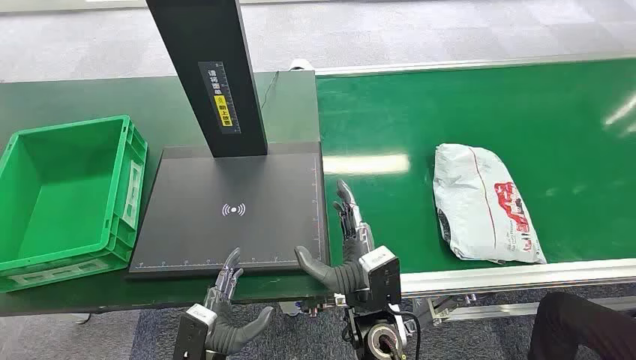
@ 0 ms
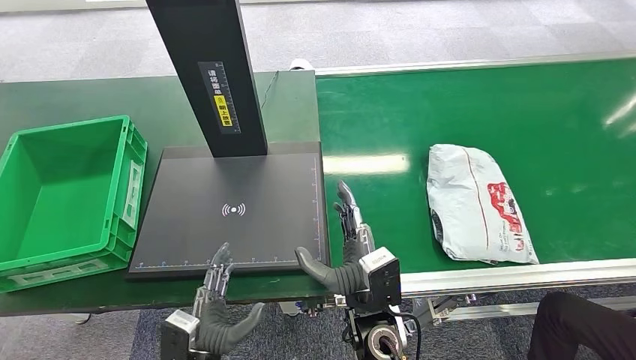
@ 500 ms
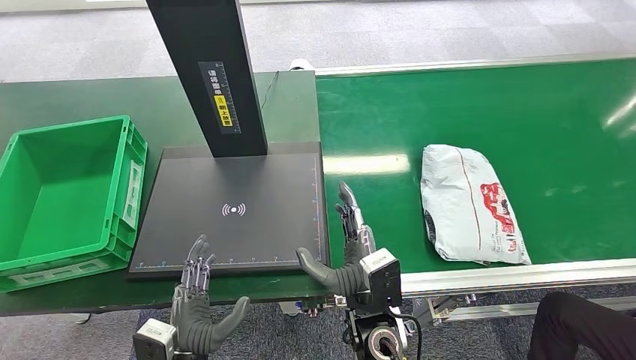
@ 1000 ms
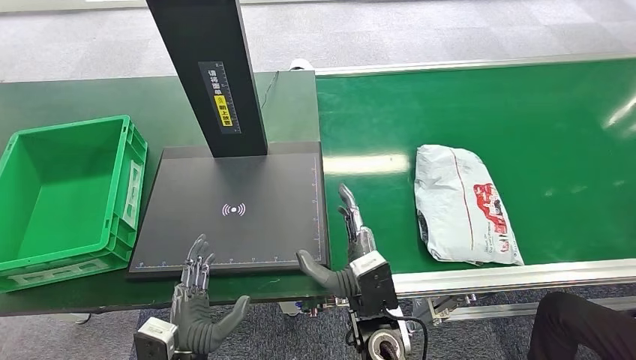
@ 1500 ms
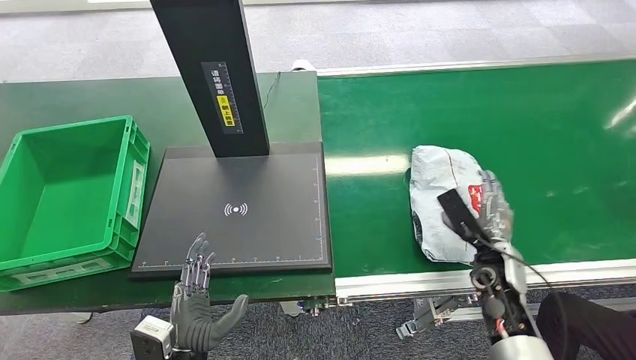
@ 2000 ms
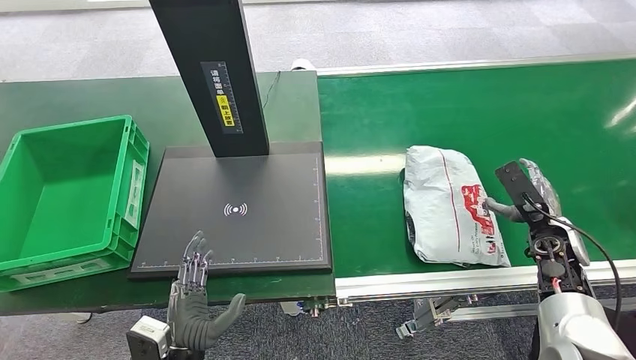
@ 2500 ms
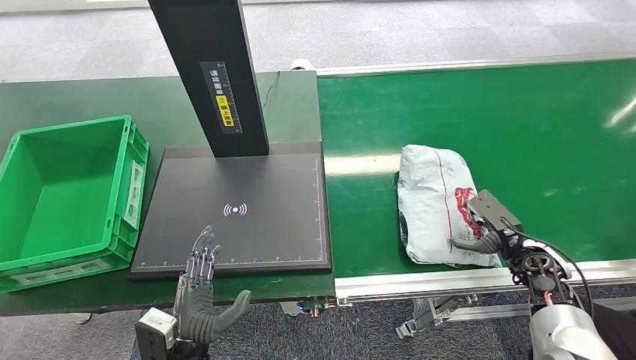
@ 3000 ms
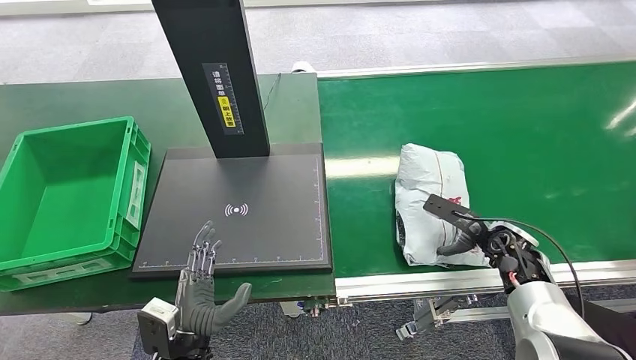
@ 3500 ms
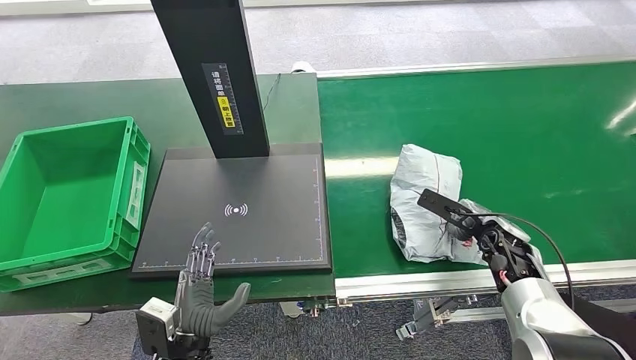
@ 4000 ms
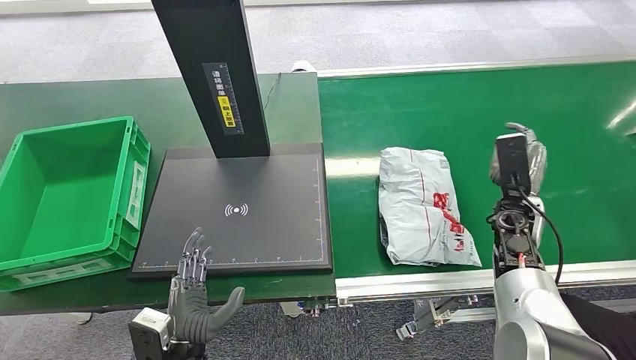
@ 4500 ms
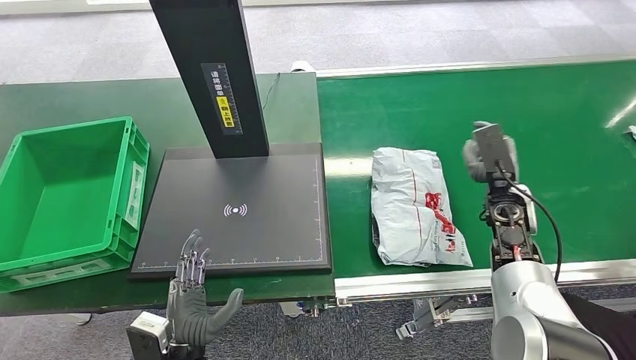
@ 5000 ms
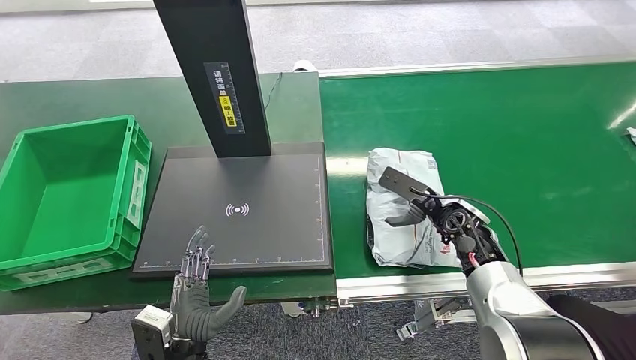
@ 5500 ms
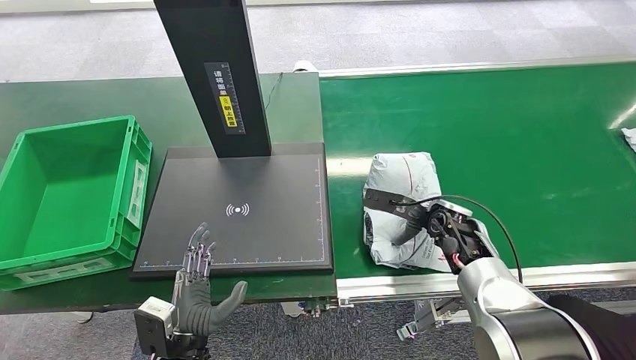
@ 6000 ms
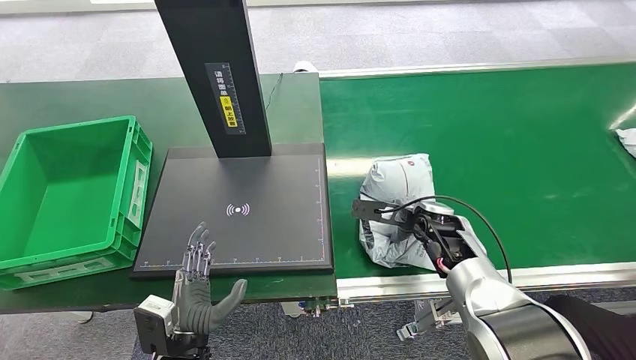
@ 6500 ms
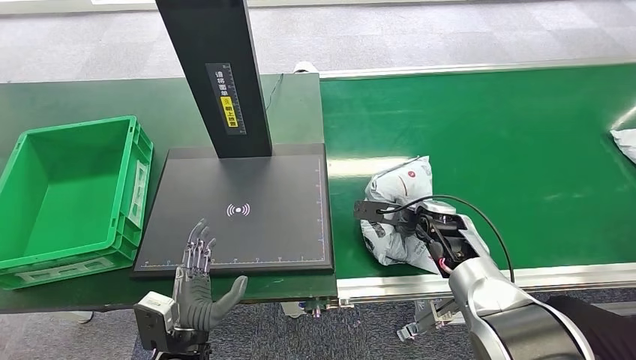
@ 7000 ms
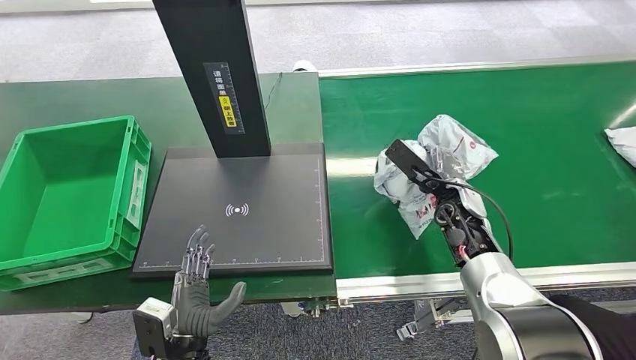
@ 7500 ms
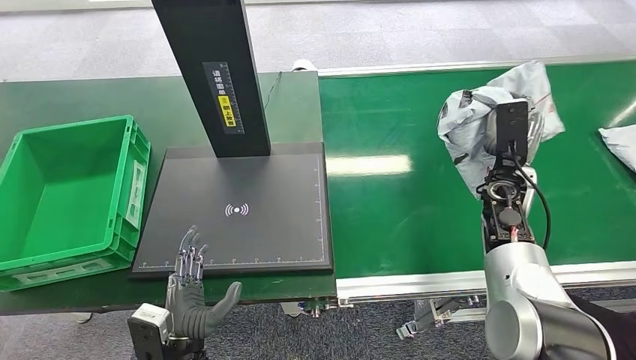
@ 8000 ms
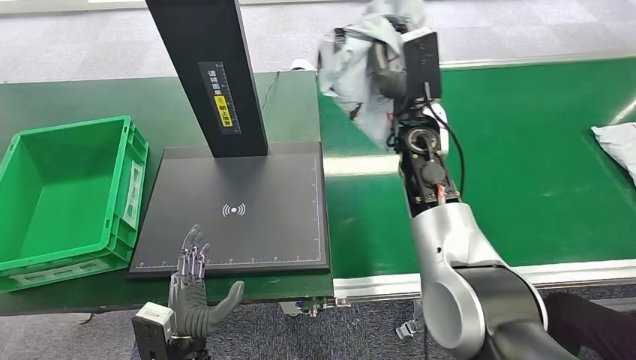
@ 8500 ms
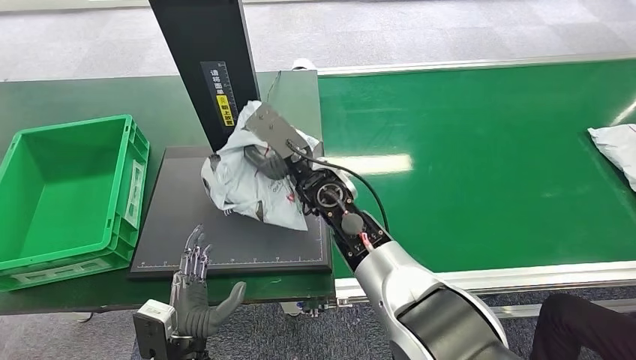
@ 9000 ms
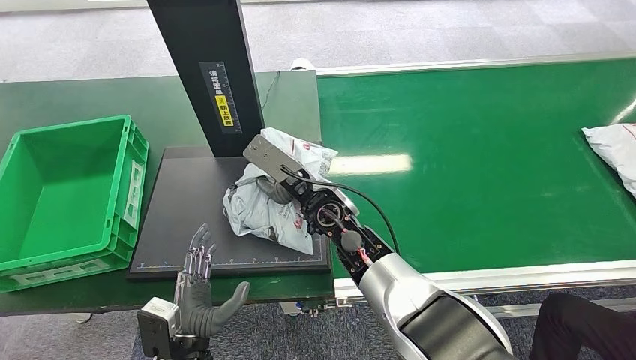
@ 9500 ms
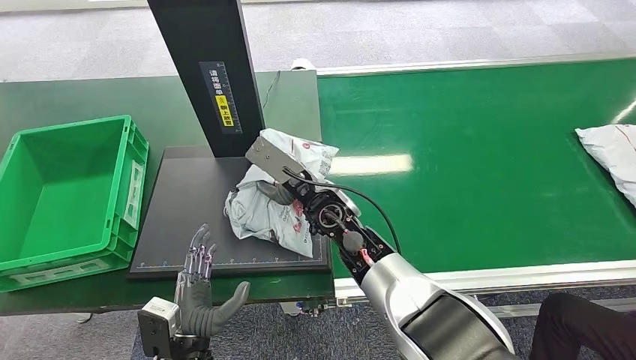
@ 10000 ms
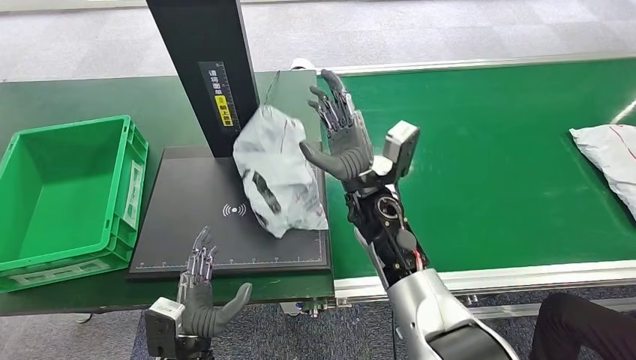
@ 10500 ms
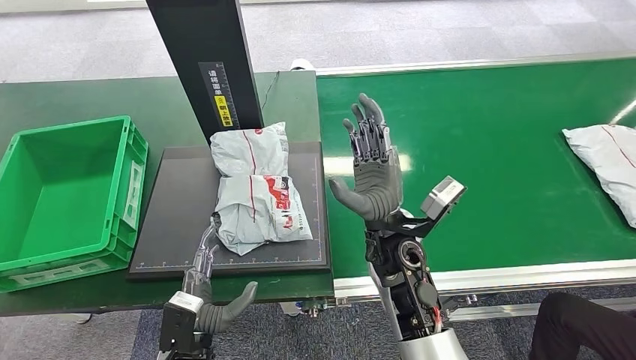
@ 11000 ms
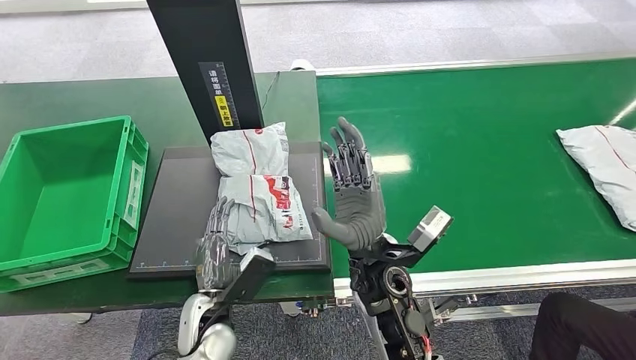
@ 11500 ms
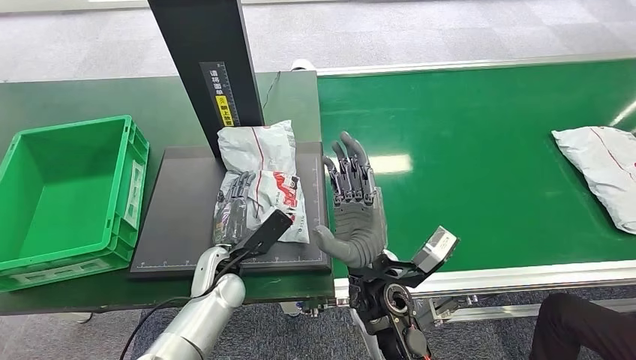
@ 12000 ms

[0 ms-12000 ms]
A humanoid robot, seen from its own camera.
Step, 0 ms to 8000 ms: Pick up the package from the conveyor belt.
Step, 8500 ms to 11500 ms: Place the package onto the inbound machine.
4000 ms to 6000 ms: The right hand shifts some 10 cm to the left.
6000 ms to 8000 ms: The right hand goes about 10 cm upward and to the right.
10000 ms to 12000 ms: The right hand heads backward, covering about 10 cm. Meanwhile the left hand goes roughly 15 cm forward.

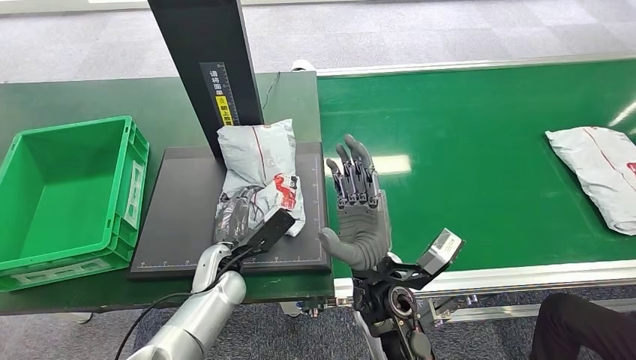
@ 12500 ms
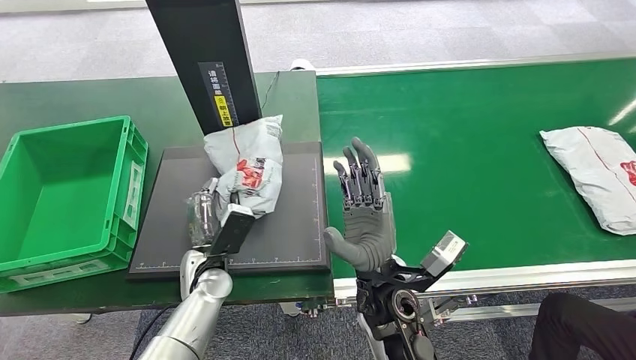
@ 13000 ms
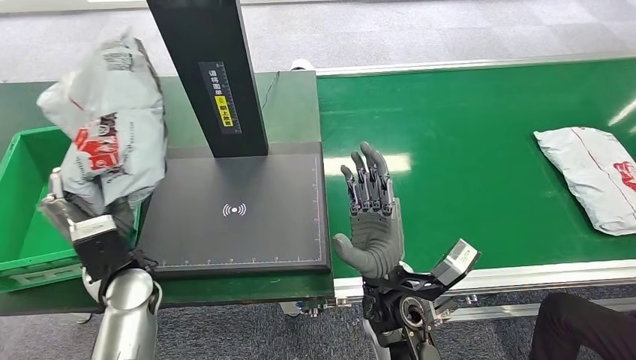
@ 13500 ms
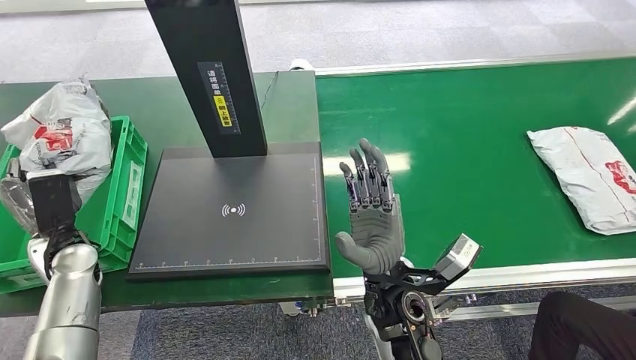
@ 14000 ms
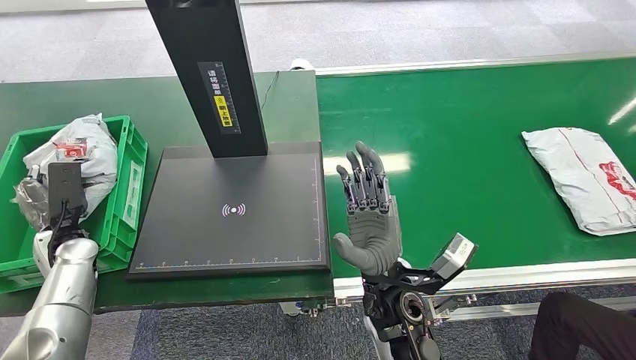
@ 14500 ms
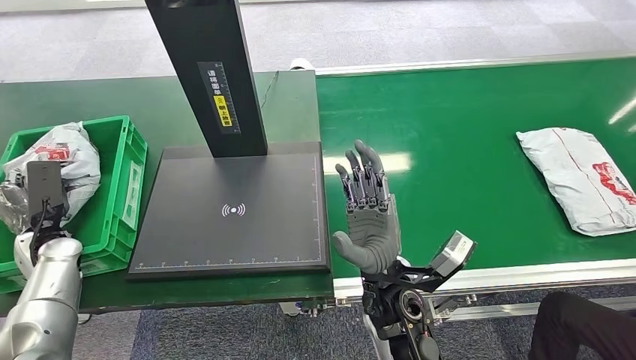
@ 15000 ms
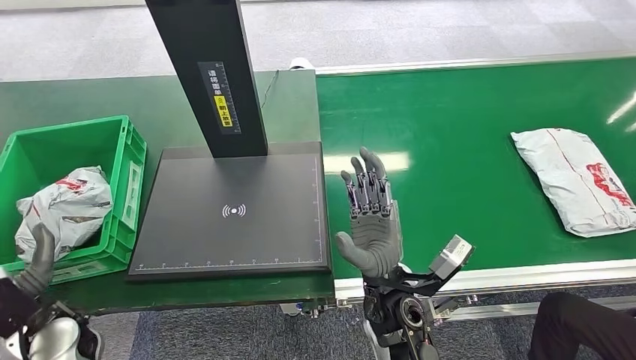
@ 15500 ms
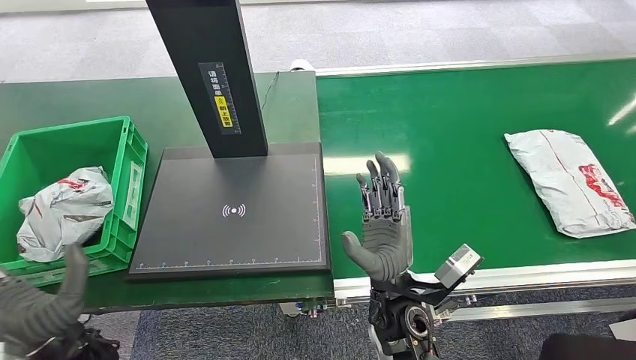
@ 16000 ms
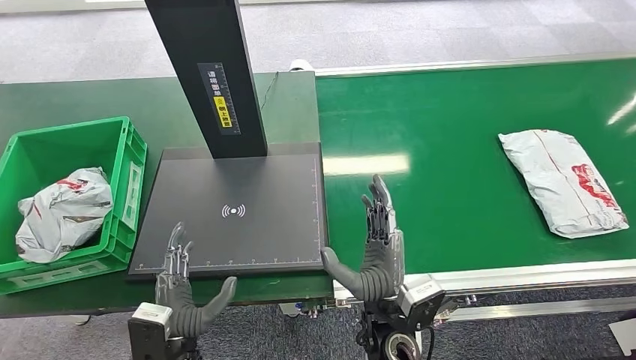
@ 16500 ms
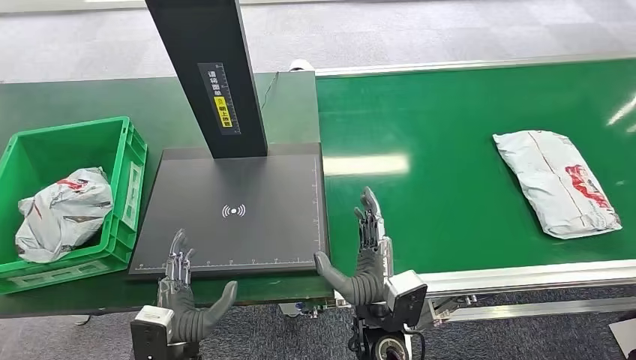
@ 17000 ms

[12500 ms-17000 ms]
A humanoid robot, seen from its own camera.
Step, 13500 ms to 16500 ms: Place the package into the parcel locker.

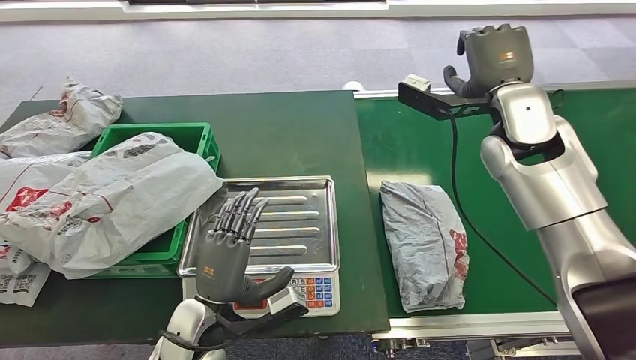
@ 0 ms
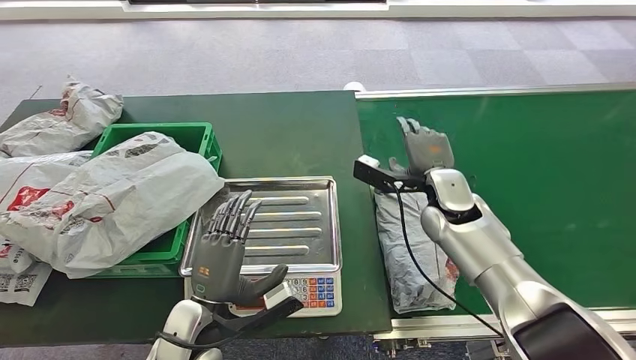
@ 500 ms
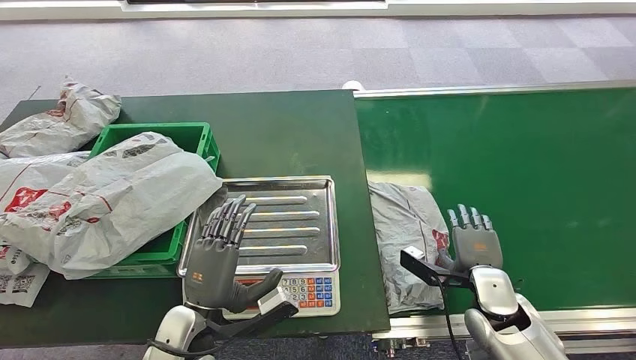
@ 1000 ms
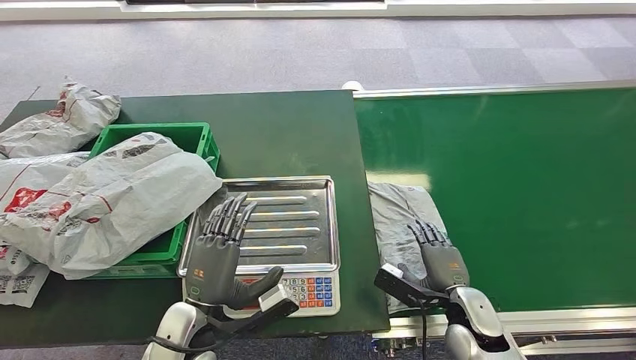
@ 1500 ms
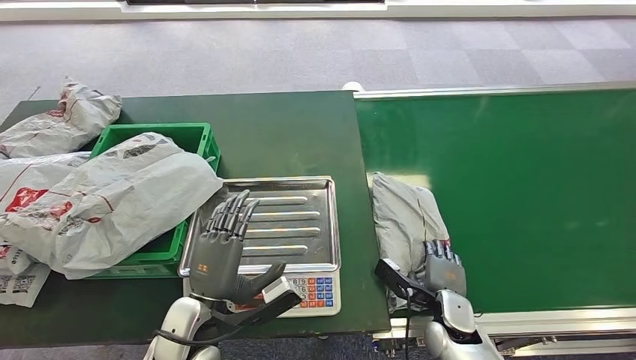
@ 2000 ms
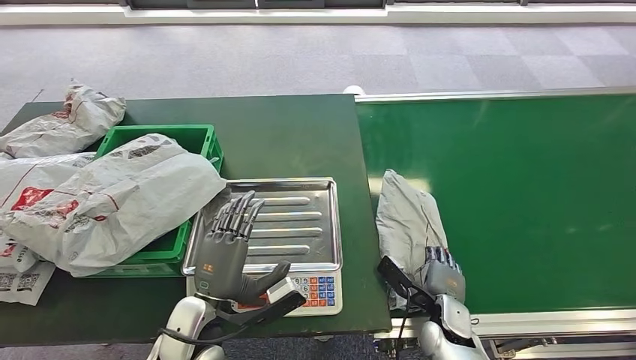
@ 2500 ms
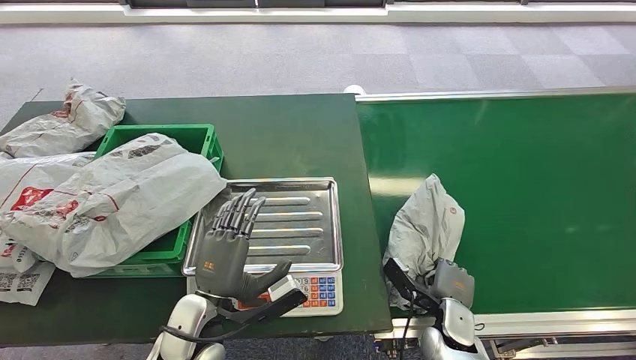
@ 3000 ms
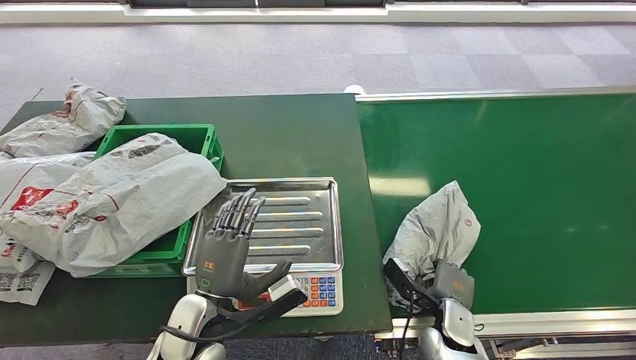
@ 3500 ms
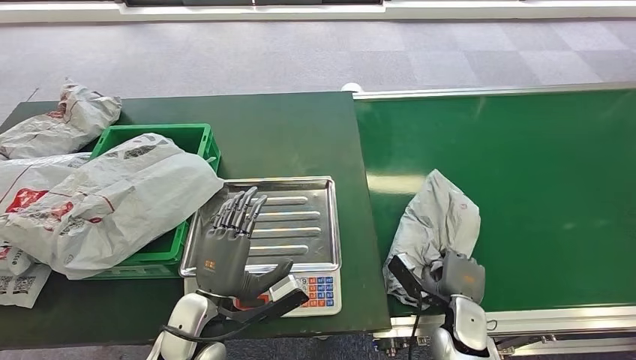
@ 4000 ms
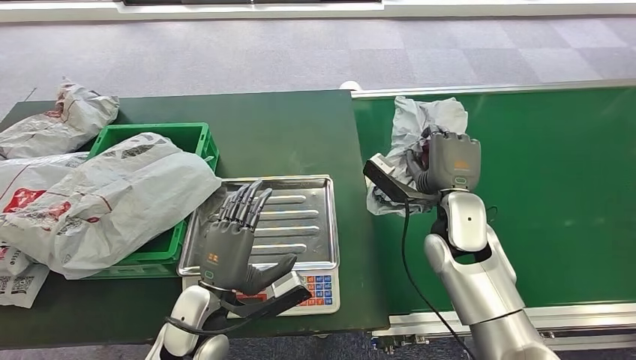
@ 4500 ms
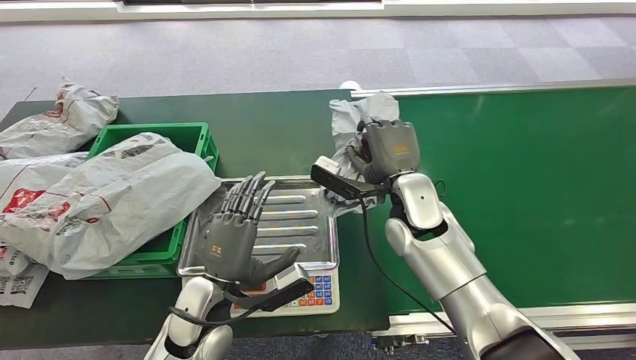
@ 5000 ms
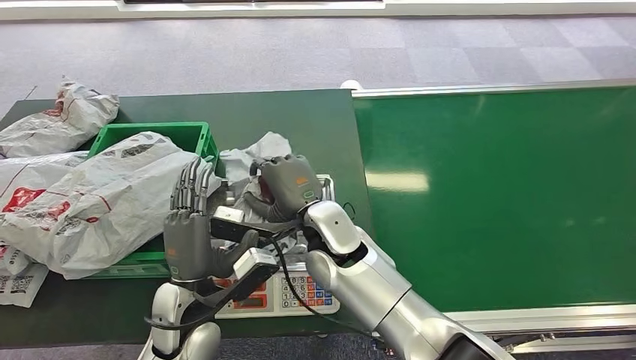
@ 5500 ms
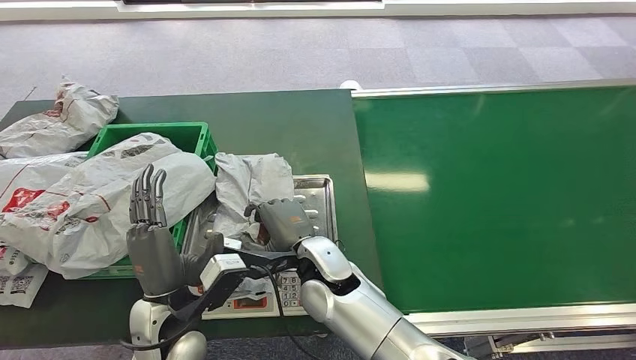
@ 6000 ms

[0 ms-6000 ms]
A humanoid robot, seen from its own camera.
Step, 0 ms to 4500 ms: Pick up the package from the conveyor belt.
2000 ms to 4000 ms: The hands move only a little.
